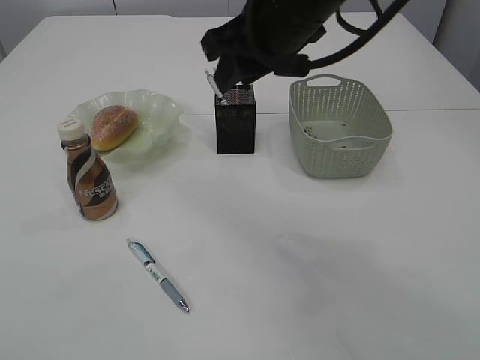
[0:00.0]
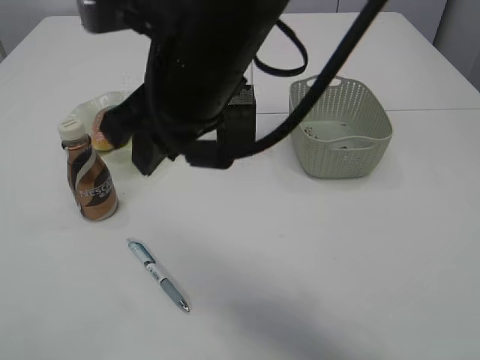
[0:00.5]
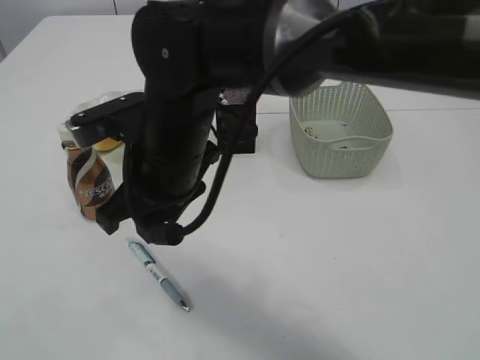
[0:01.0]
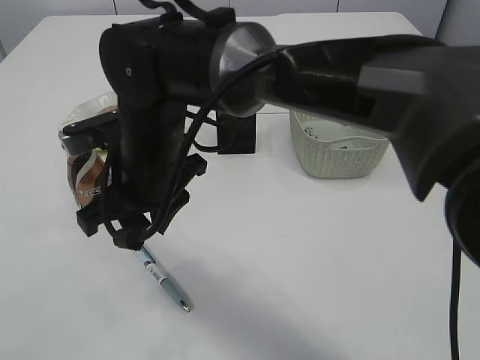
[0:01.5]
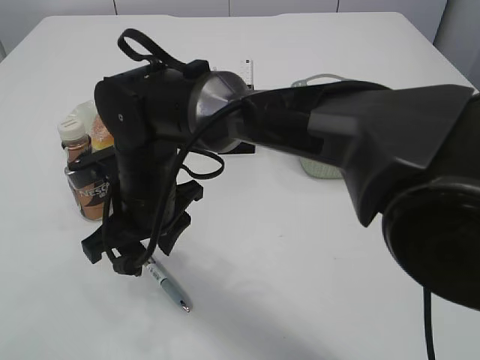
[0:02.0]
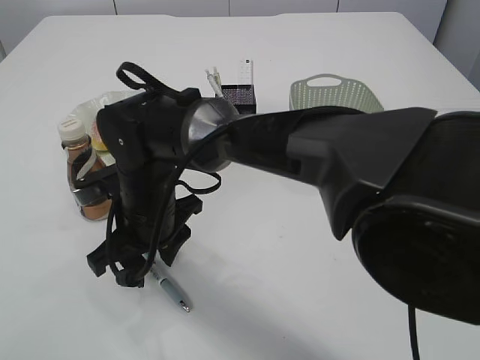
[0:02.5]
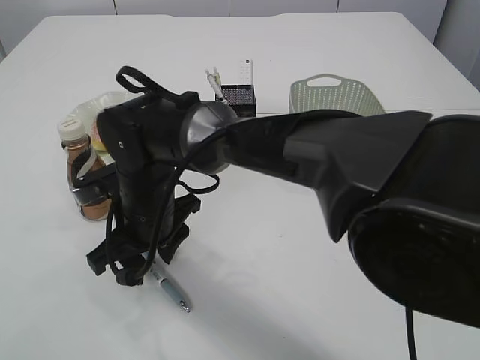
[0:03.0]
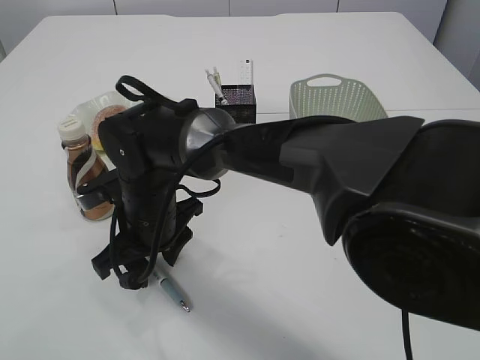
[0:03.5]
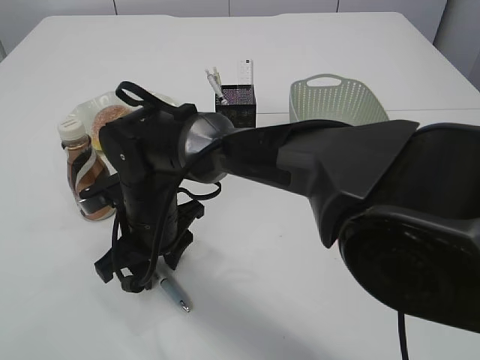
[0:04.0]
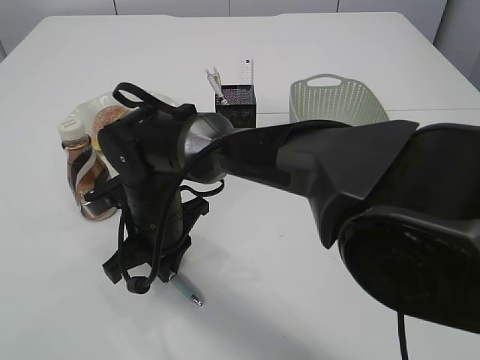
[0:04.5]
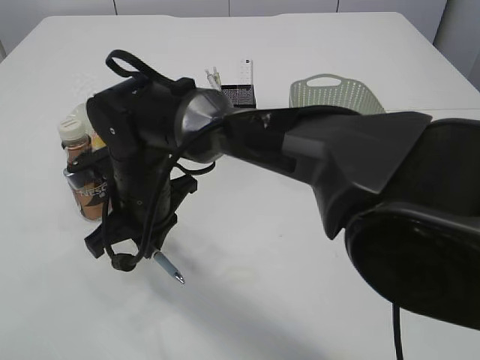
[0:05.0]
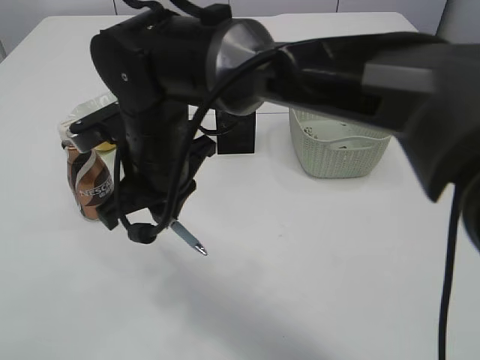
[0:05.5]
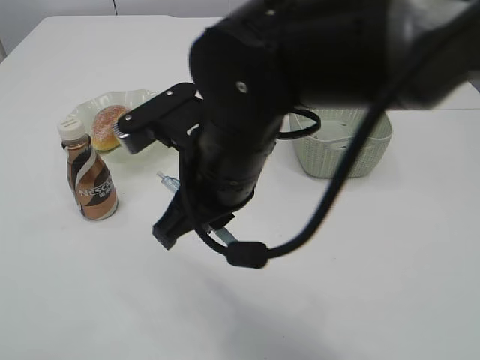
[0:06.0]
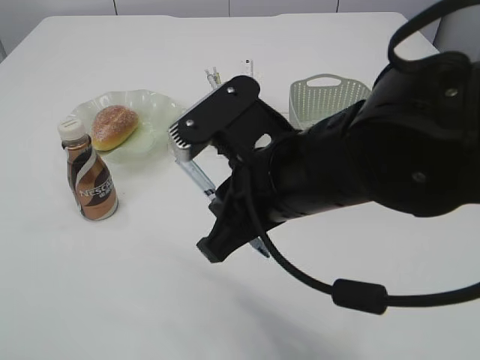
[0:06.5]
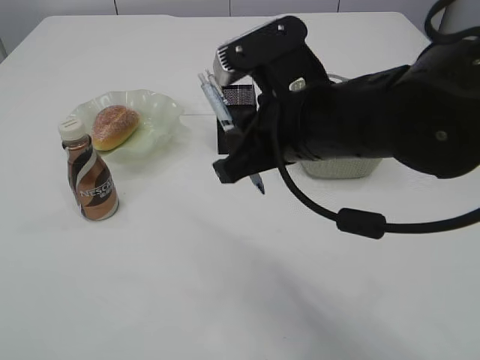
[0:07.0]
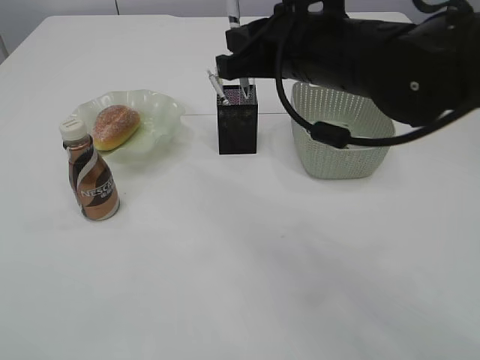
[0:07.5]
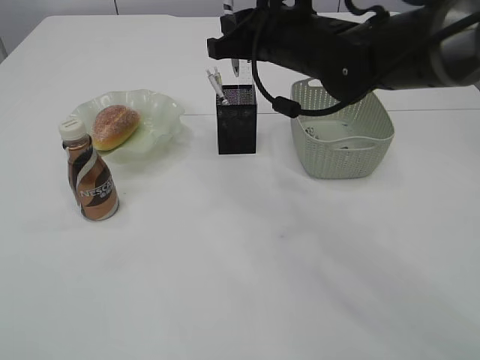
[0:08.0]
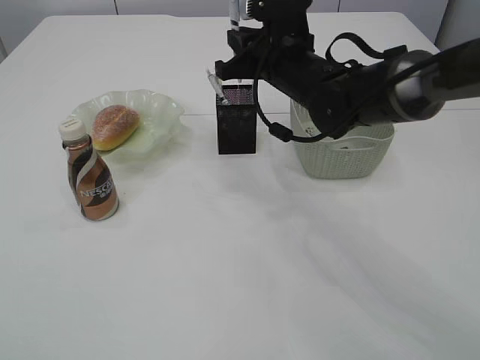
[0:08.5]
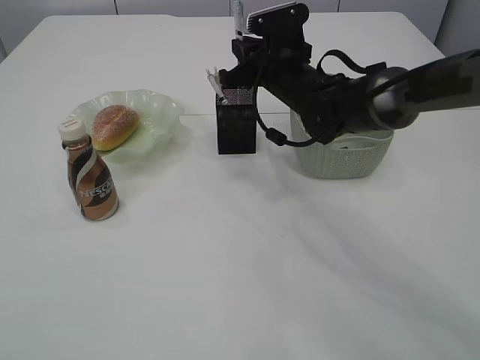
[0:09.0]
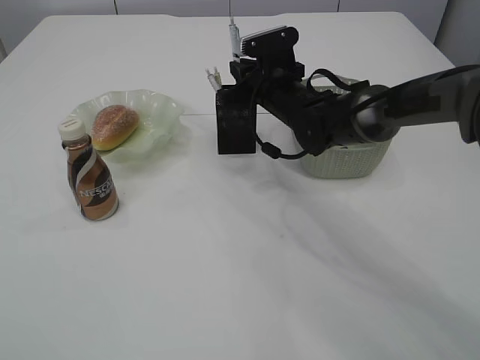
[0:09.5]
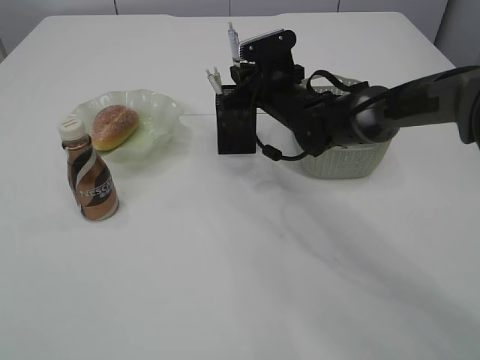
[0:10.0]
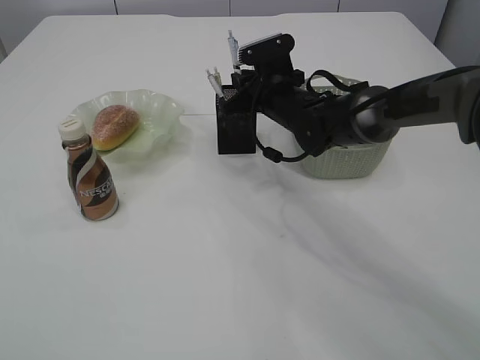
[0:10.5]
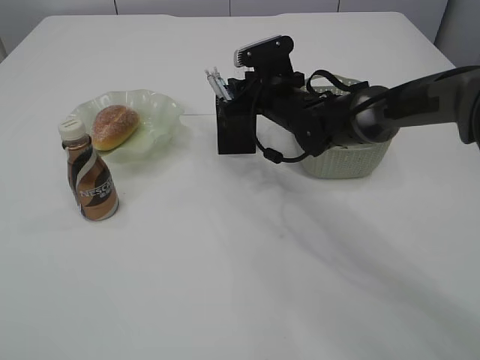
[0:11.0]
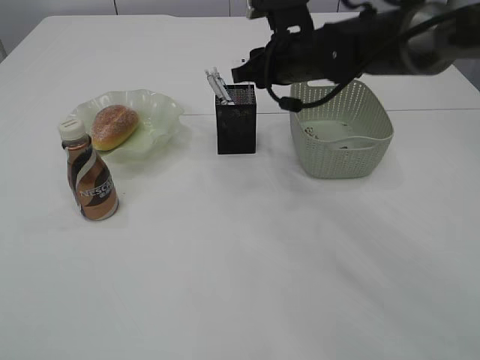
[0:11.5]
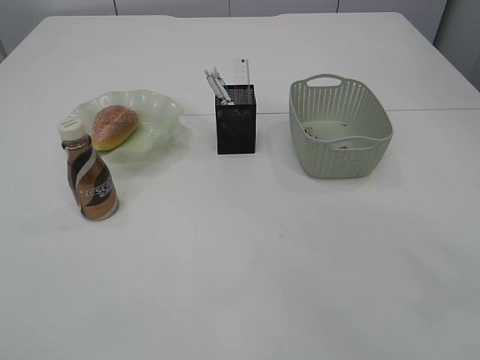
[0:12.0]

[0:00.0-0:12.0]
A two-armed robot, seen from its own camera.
Step, 0:00.0 to 0:05.0: Pick up the pen with right arm.
Step, 0:05.5 to 0:11.5: Place the pen into the pen holder.
0:00.0 to 0:02.0: The right gripper moves downward and to the left, some 20 cm.
0:02.0 to 0:04.0: The right gripper shifts about 5 cm downward.
0:04.0 to 0:06.0: The right gripper heads upward, to the right and backward, covering roughly 15 cm, and closes its fingers.
0:06.0 to 0:08.0: The right gripper travels forward and to the right by some 15 cm.
0:08.0 to 0:10.0: The right gripper moves downward and forward, some 15 cm.
0:10.0 to 0:12.0: The left gripper opens up, while the right gripper is displaced upward and backward by some 30 cm, and opens.
